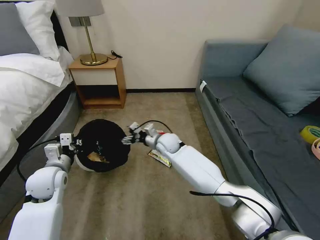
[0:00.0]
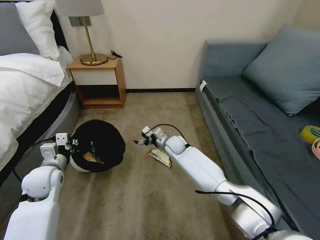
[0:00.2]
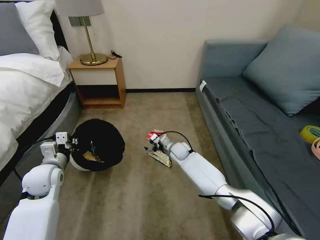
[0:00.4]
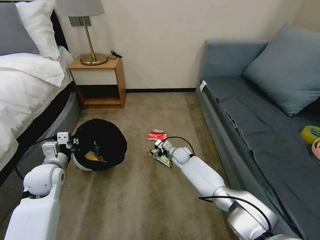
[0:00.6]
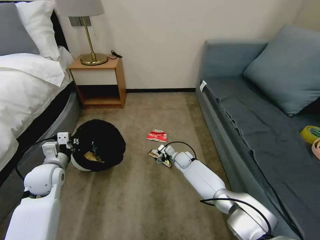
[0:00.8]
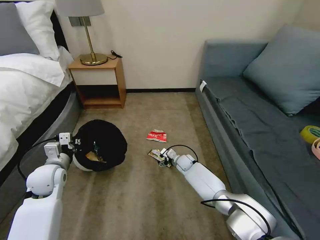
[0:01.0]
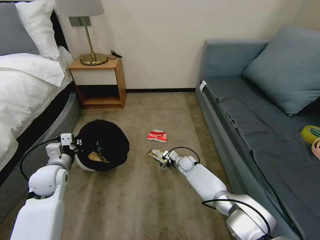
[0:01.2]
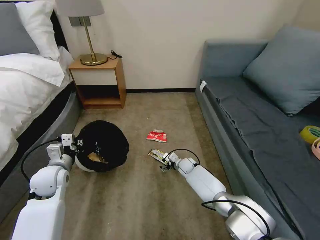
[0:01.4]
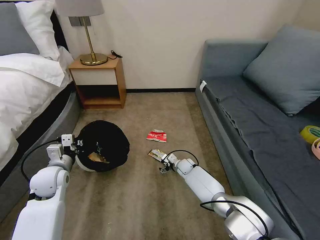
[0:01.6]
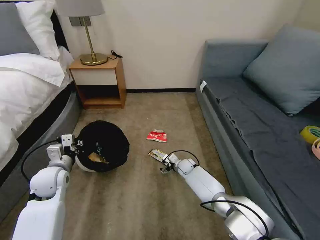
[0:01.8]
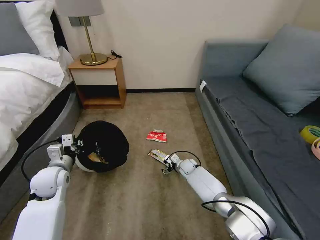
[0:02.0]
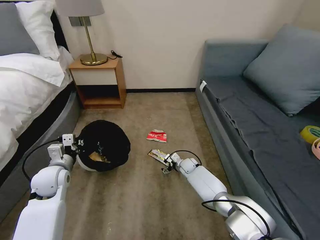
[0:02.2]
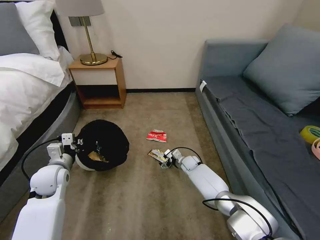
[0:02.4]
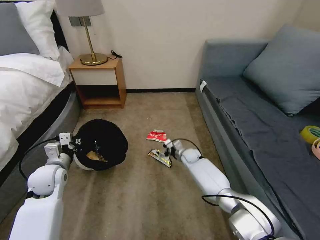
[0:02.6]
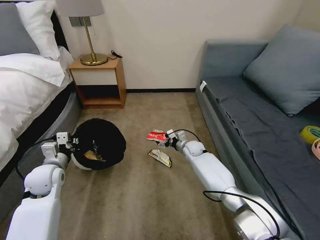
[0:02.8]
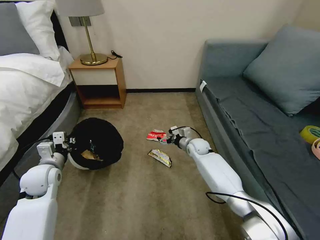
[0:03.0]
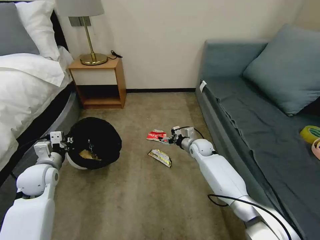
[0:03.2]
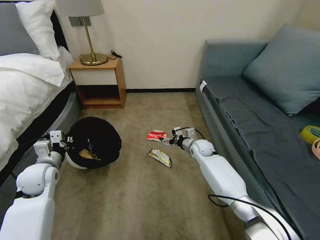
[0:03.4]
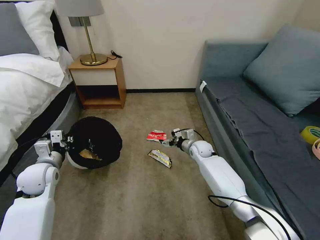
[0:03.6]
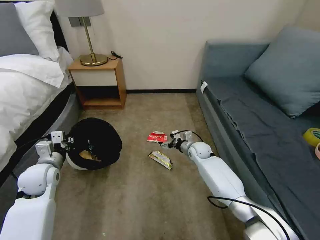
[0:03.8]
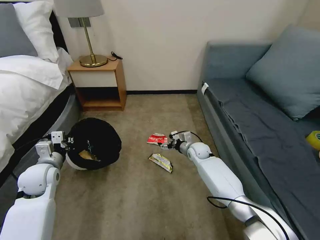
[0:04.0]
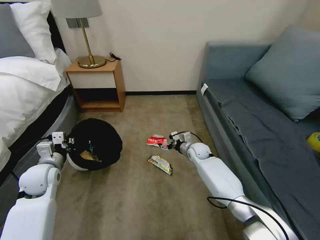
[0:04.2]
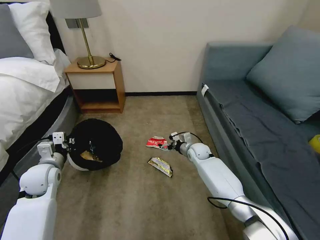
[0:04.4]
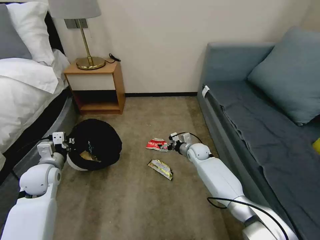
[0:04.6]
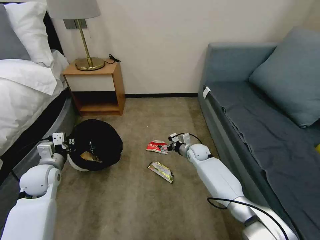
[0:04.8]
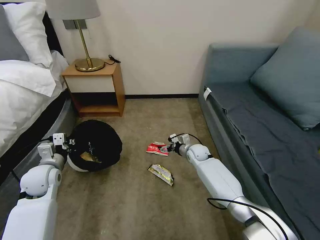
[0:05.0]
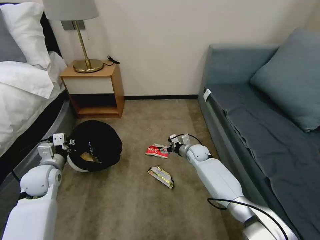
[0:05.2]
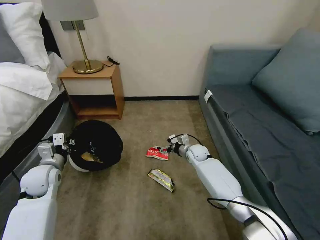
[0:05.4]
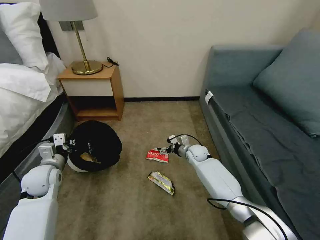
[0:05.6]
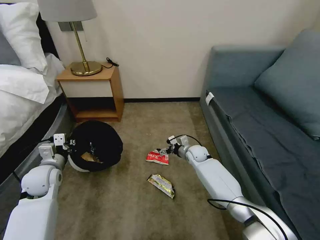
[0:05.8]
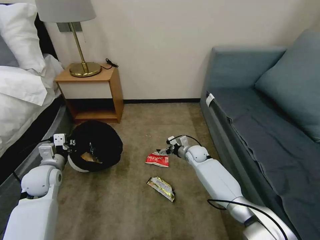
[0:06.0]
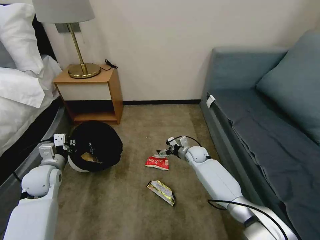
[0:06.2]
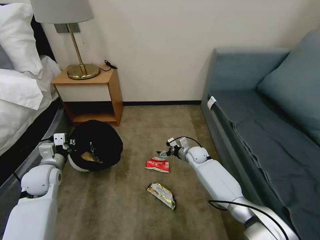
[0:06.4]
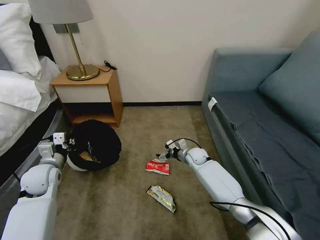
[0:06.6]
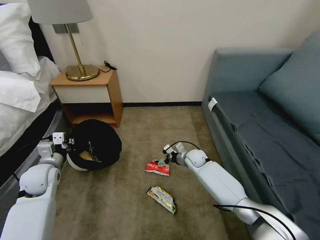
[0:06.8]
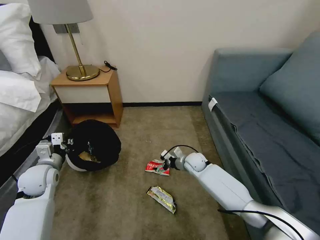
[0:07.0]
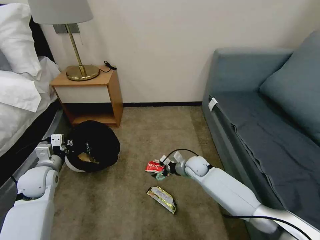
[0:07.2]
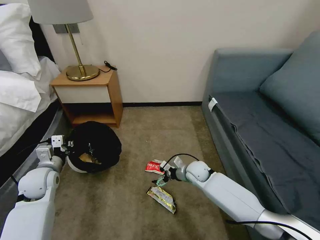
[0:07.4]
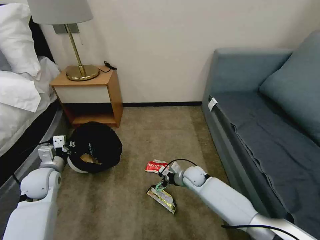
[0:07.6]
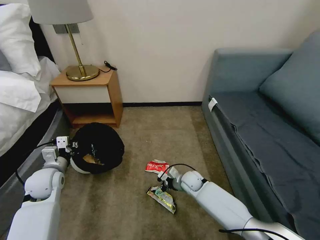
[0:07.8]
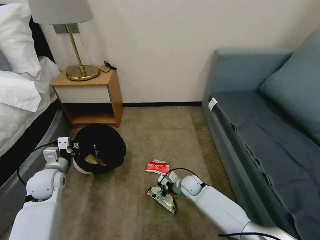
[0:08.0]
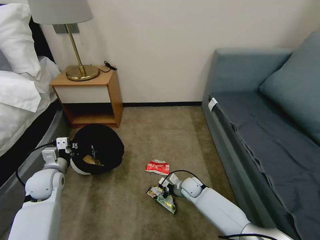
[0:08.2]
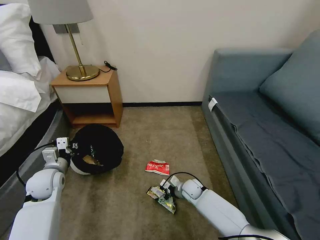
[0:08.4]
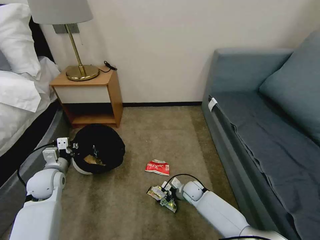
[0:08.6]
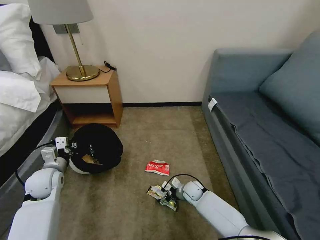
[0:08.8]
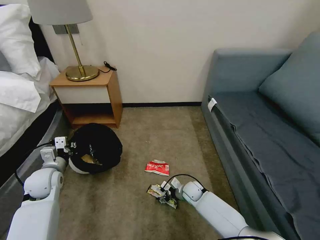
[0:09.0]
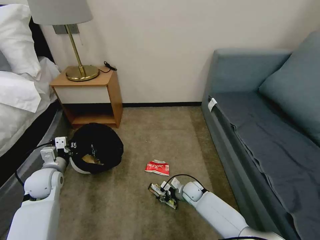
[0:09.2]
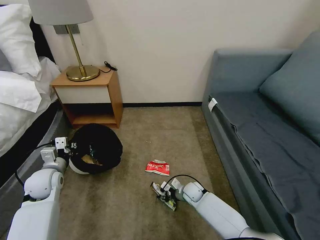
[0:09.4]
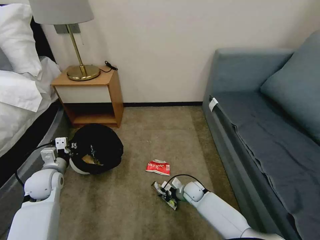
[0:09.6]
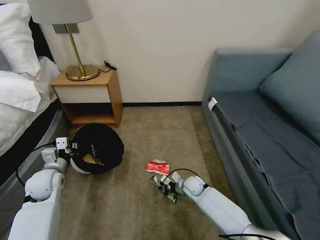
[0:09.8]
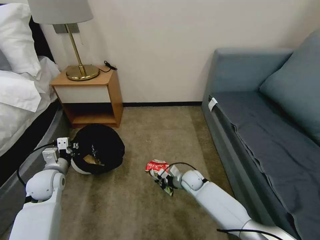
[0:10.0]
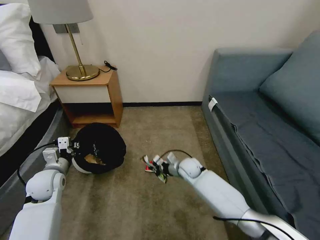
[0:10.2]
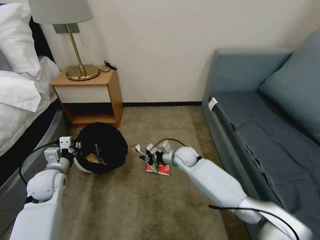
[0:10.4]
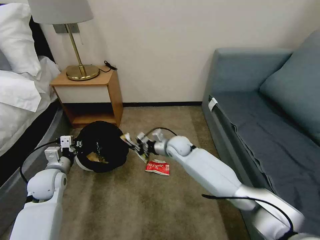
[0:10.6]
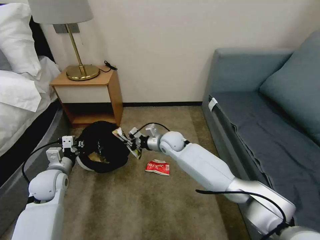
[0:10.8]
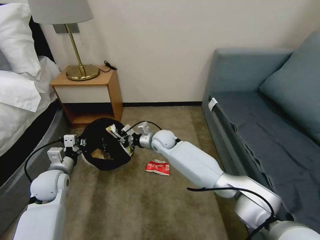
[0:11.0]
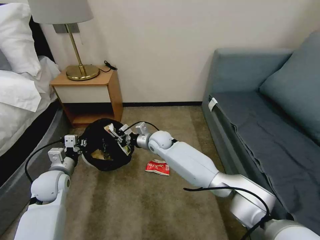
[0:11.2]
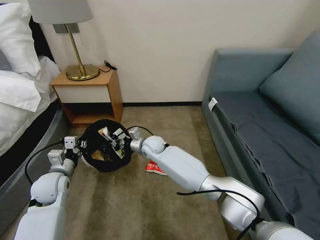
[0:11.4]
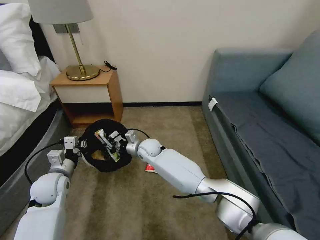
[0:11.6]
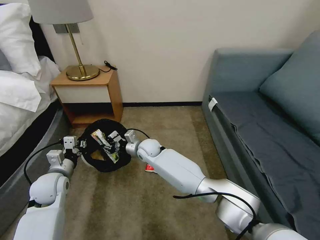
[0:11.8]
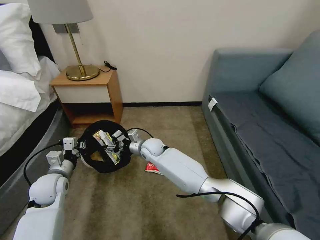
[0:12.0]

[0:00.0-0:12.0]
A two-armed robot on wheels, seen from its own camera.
Task of the whole recording: Pick up the trash bin, then pick up the garbage on the floor and place it into the trash bin.
0:00.0 to 0:01.6: The right gripper travels downward and to the right by roughly 20 cm.
0:01.6 to 0:03.0: The right gripper travels upward by roughly 10 cm.
0:03.0 to 0:04.4: There are only small adjustments of the grippers.
0:06.0 to 0:07.6: The right gripper is displaced backward by about 10 cm.
0:07.6 to 0:09.0: The right gripper is displaced downward by some 10 cm.
0:09.0 to 0:10.4: The right gripper travels upward and forward by about 20 cm, and closes.
0:10.4 to 0:12.0: The right gripper shifts some 15 cm to the left, and opens its fingers.

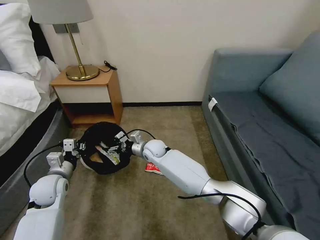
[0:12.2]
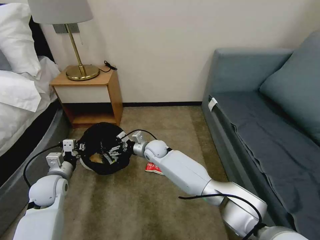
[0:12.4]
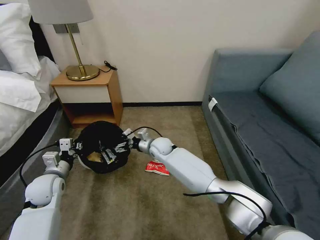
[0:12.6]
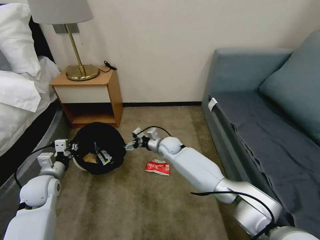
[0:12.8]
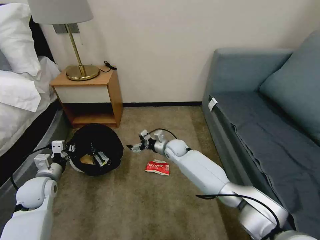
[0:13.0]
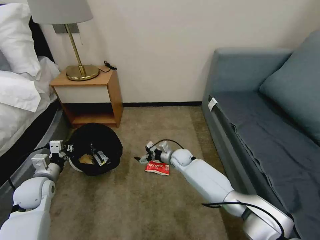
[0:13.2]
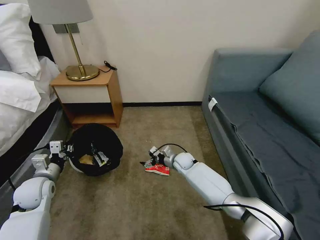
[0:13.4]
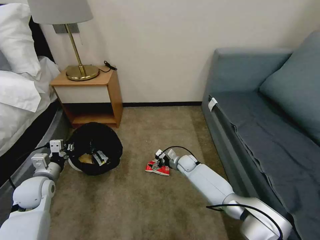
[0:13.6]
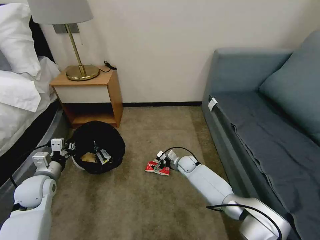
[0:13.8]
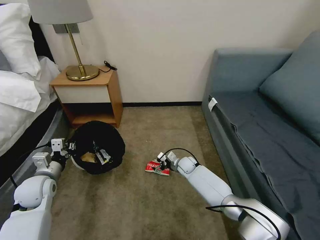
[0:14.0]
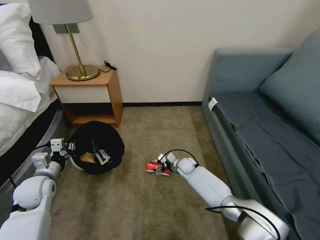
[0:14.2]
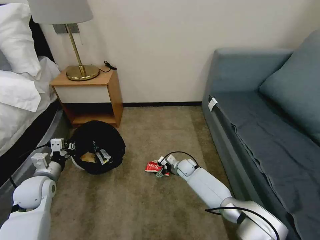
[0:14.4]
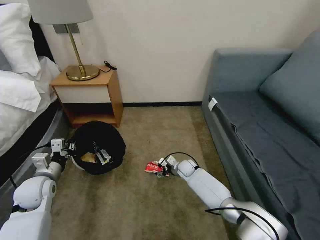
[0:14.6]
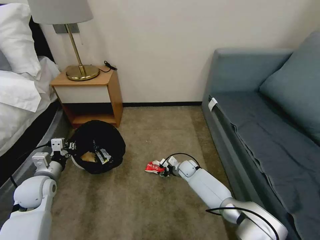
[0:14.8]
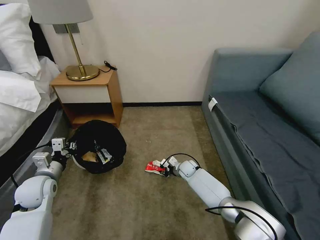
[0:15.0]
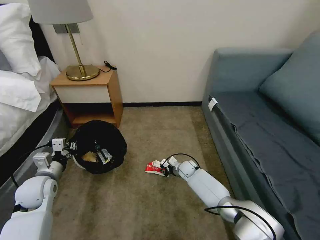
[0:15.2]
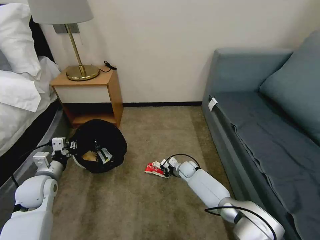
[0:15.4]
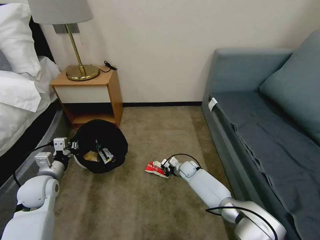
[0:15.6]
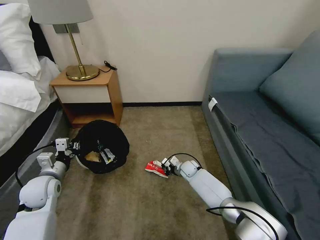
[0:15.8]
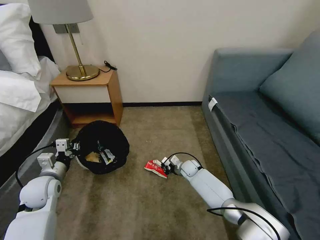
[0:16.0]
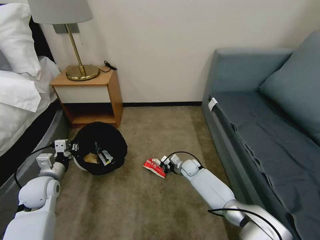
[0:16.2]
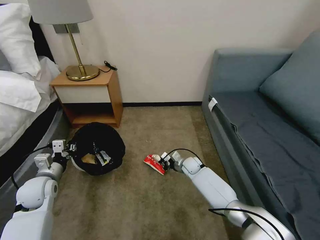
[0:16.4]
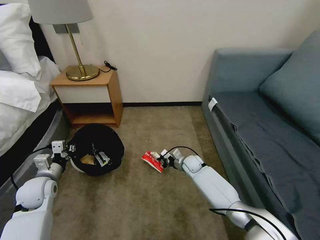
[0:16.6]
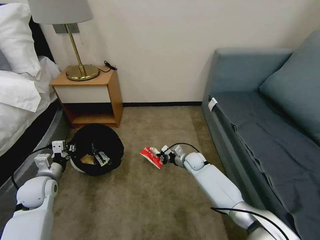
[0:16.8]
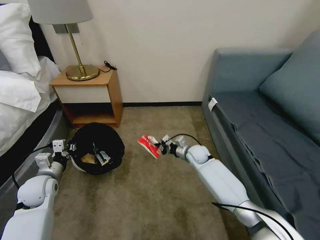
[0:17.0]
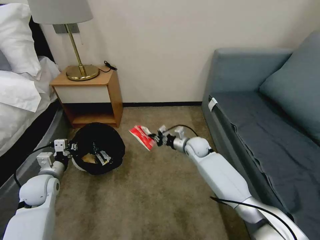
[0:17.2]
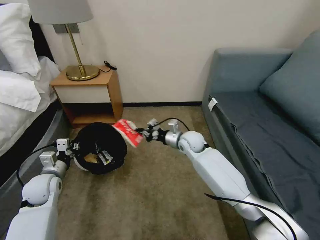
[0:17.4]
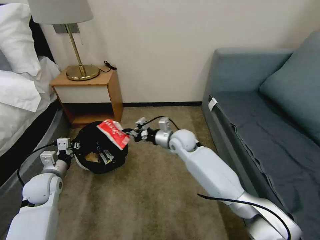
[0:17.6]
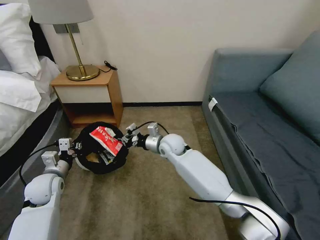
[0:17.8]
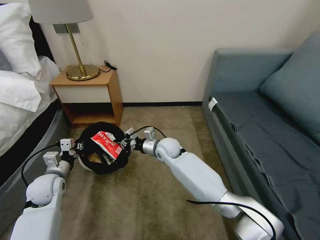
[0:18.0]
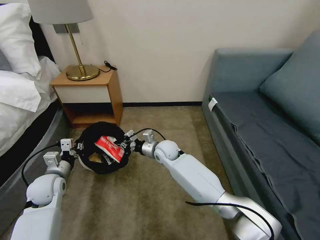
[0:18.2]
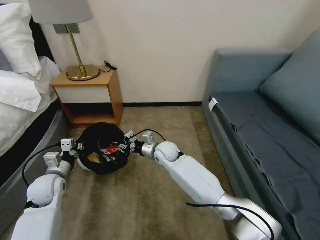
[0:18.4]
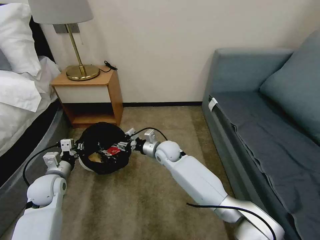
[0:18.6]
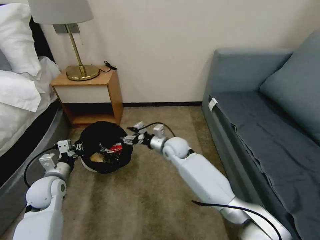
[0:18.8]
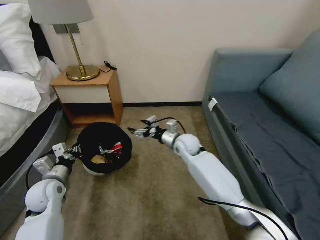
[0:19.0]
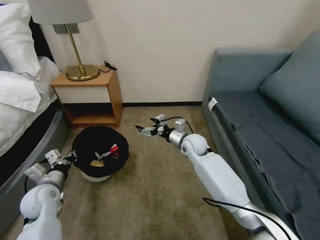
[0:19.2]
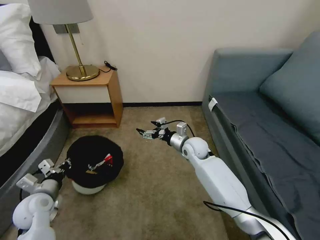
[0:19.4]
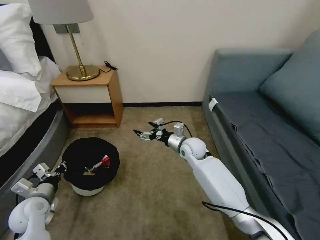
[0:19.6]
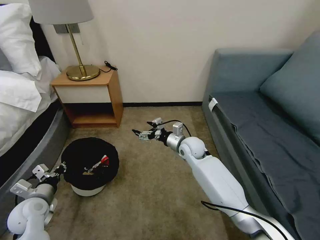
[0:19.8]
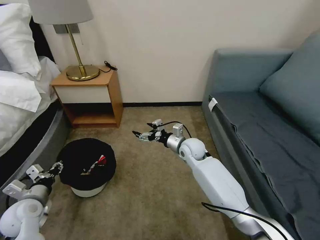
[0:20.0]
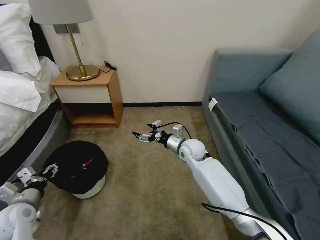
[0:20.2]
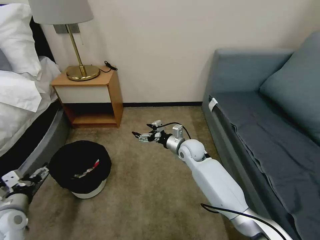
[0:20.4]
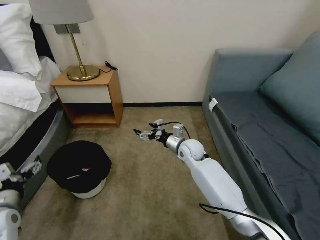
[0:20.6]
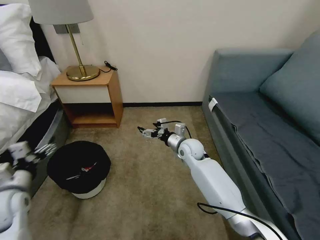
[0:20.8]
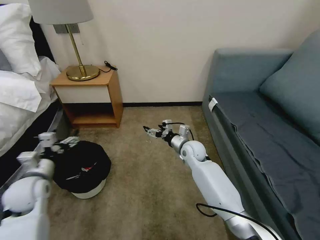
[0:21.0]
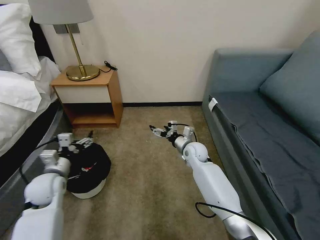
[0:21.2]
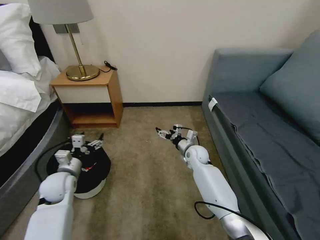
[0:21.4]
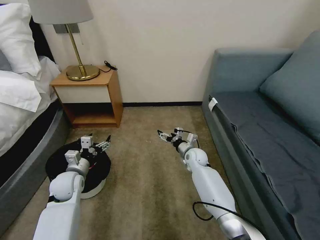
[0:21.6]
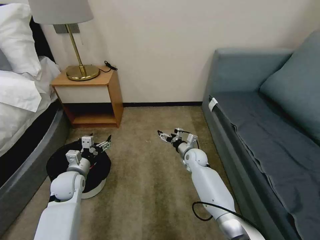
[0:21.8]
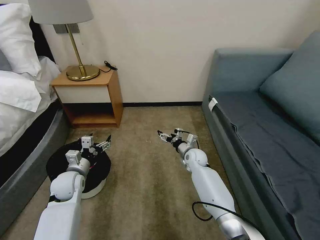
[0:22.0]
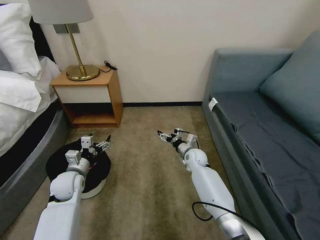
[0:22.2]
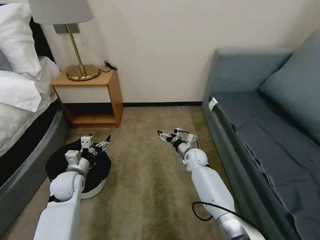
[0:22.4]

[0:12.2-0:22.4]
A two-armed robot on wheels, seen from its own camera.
Task of the whole recording: Pick up the trash bin, then pick up the garbage on the floor and place it into the trash bin.
0:12.2 to 0:13.6: The right gripper is displaced to the right and downward by approximately 20 cm.
0:13.6 to 0:15.2: The right gripper closes.
0:15.2 to 0:16.6: The right gripper changes place by approximately 5 cm.
0:16.6 to 0:18.0: The right gripper heads upward and to the left, covering some 20 cm.
0:18.0 to 0:19.4: The right gripper moves to the right, some 10 cm, and opens, while the left gripper shifts some 5 cm backward.
0:19.4 to 0:21.0: The left gripper heads upward, covering about 5 cm, and opens.
0:21.0 to 0:22.4: The left gripper shifts approximately 10 cm downward, to the right and forward, while the right gripper travels downward by some 5 cm.
